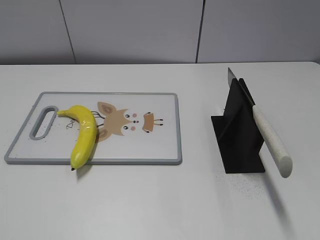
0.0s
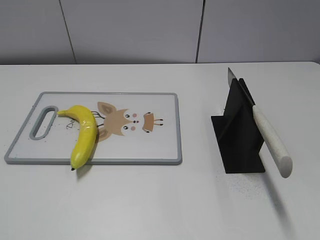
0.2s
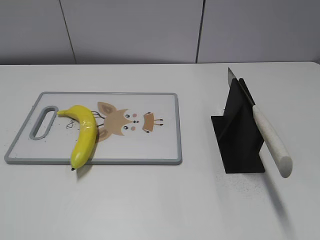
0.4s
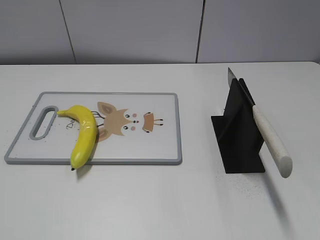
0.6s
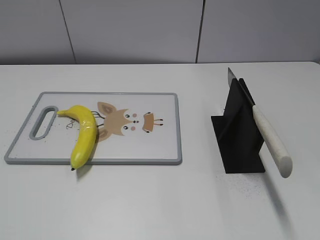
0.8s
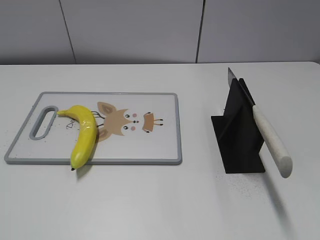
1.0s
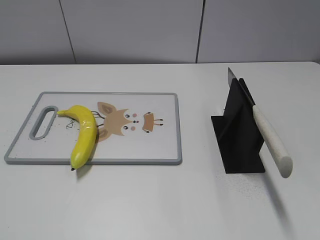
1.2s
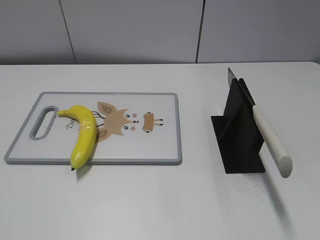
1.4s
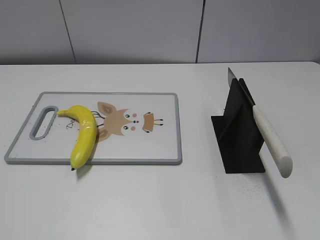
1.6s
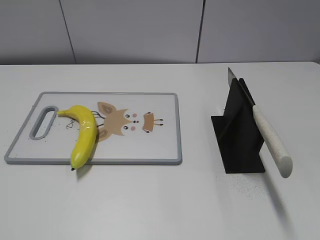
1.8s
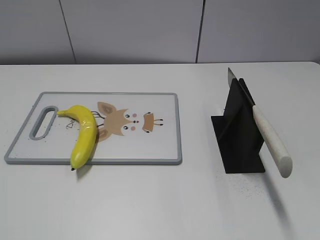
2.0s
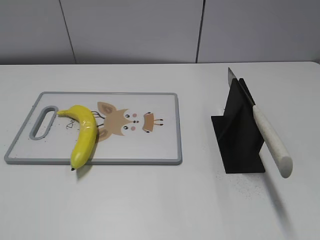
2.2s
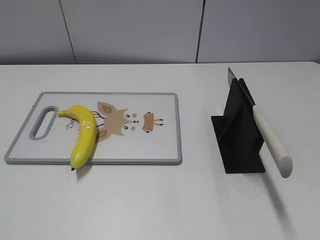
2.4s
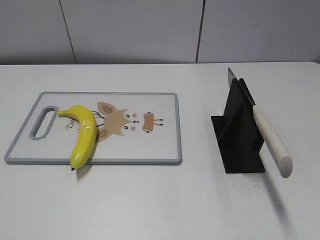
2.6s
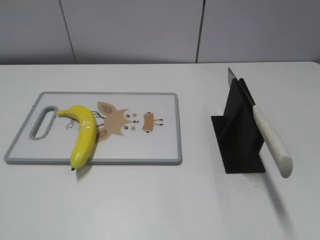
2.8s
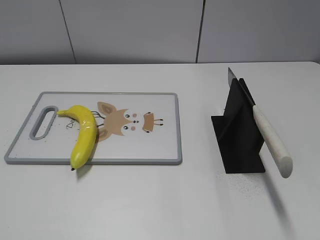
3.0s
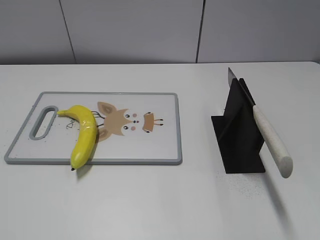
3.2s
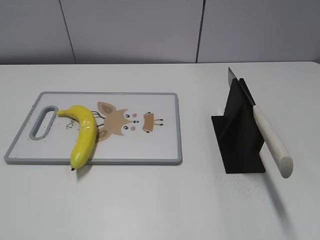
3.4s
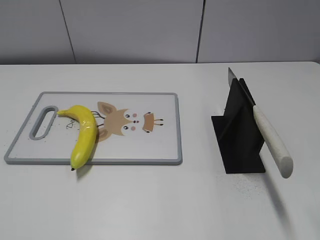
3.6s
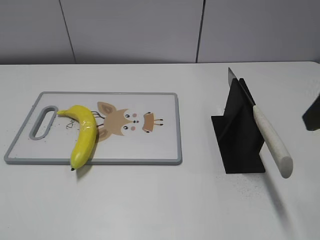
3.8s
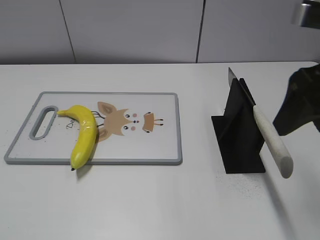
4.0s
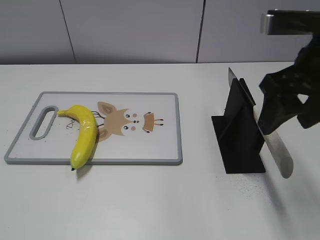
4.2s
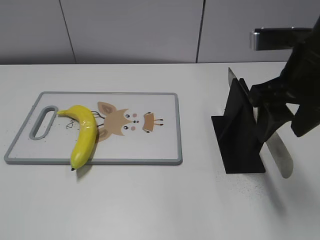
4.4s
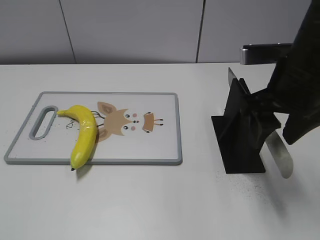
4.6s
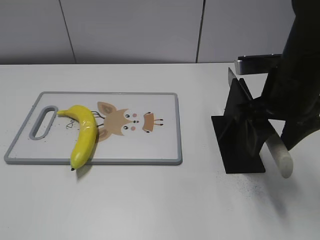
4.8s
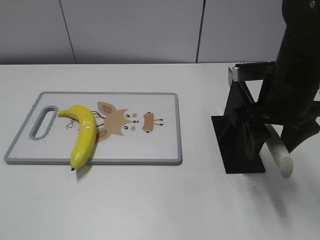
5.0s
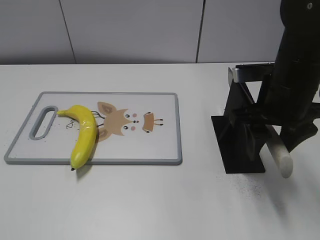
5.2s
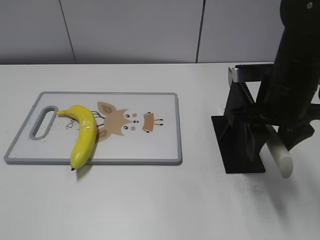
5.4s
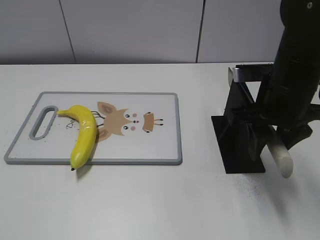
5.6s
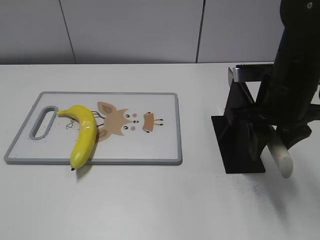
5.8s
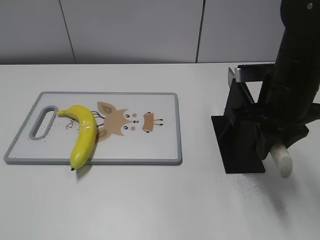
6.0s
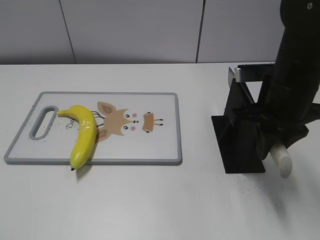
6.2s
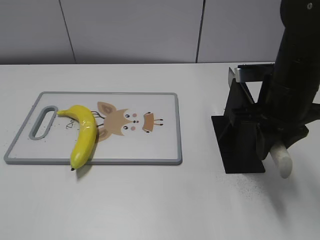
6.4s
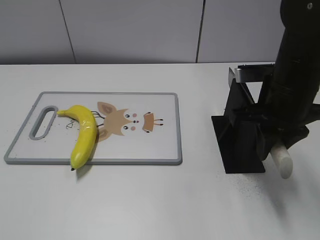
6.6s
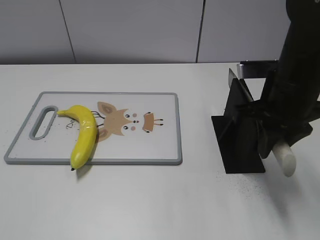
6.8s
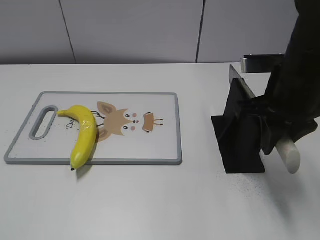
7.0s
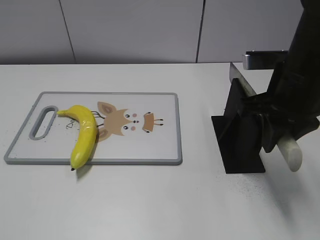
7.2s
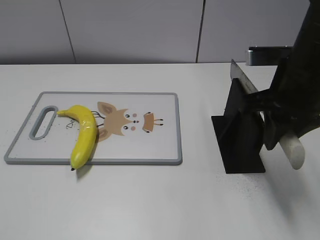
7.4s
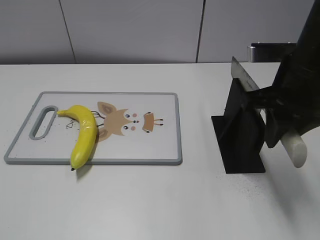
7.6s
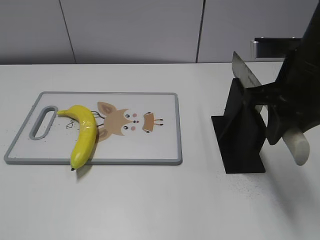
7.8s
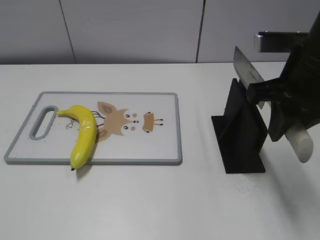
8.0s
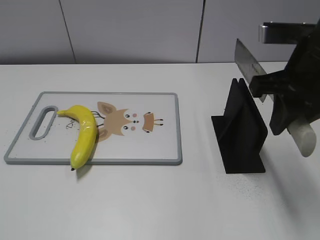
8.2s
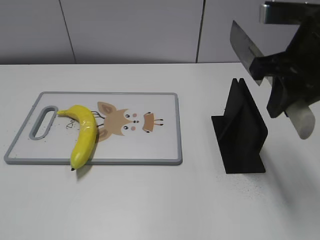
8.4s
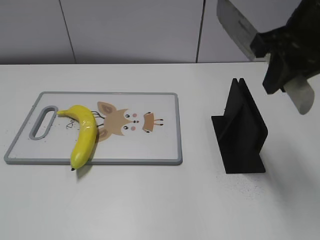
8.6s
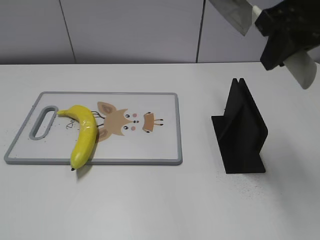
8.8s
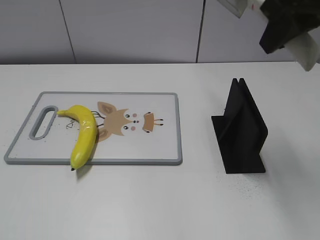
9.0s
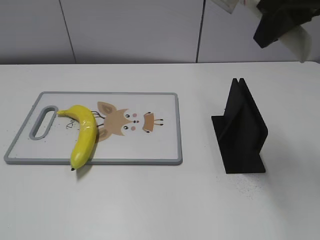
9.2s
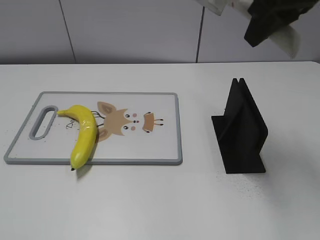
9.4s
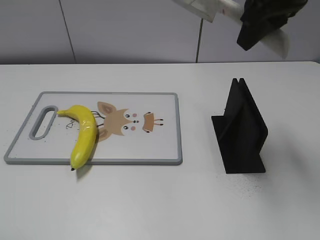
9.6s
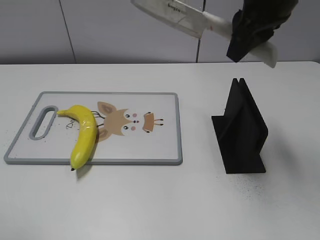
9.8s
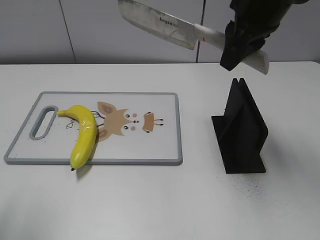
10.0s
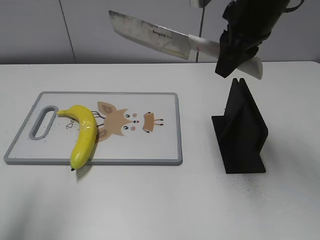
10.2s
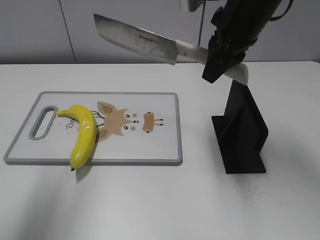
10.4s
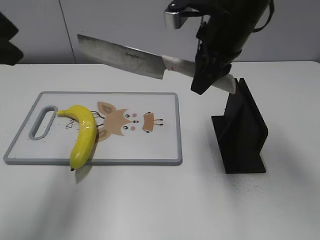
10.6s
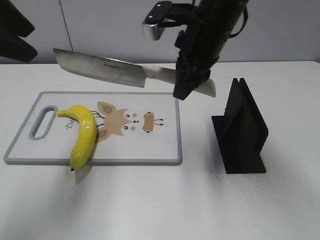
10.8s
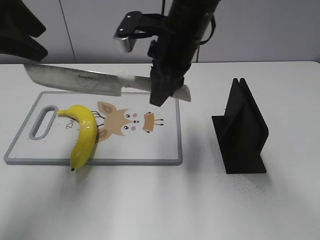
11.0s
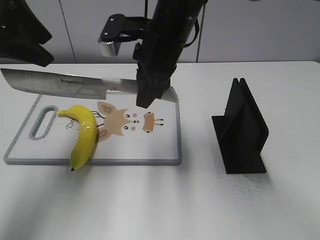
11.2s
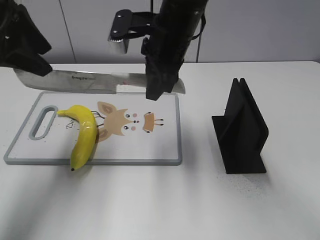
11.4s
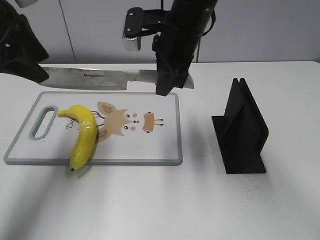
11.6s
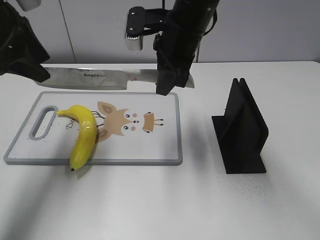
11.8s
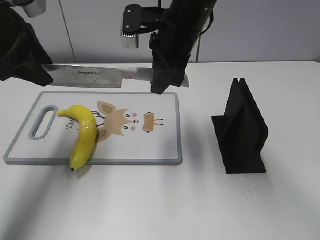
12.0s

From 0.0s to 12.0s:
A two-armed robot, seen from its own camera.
Task of the whole recording: cut plastic banana.
Step, from 0.0s to 7.8s: Grab the knife handle with your right hand.
From 3.0s to 4.4s: The right gripper heads forward and to the left, covering approximately 20 cm.
From 4.4s to 6.0s: The right gripper travels downward by about 5 cm, and closes up.
From 6.0s to 7.6s: The grippers move only a little.
From 7.6s to 9.0s: The right gripper goes roughly 10 cm upward.
From 9.0s to 10.4s: The right gripper moves downward, forward and to the left, approximately 10 cm. The left gripper shifts approximately 20 cm forward and upward.
From 10.4s to 12.0s: The right gripper moves to the left, approximately 10 cm, while the left gripper travels forward and downward by about 15 cm.

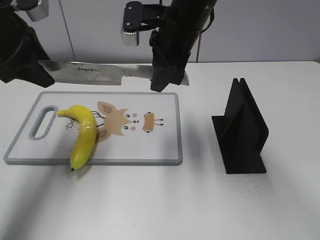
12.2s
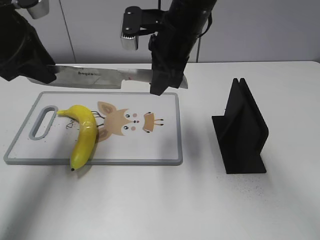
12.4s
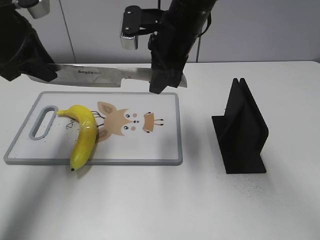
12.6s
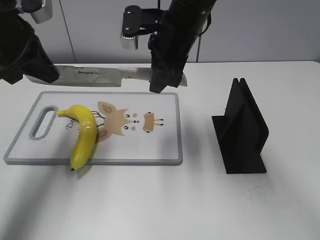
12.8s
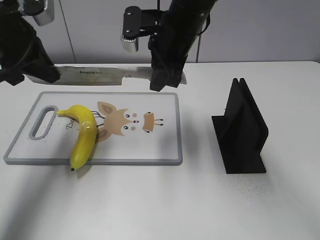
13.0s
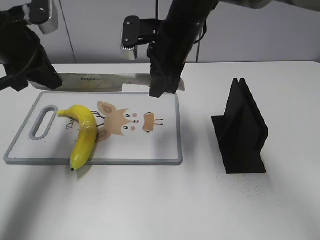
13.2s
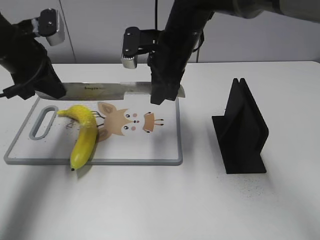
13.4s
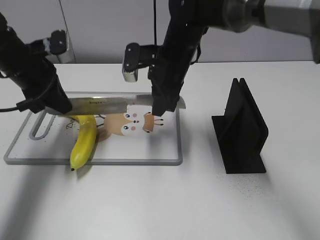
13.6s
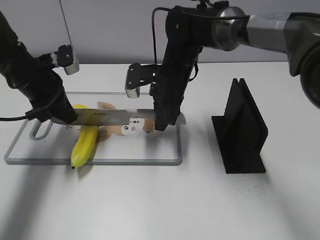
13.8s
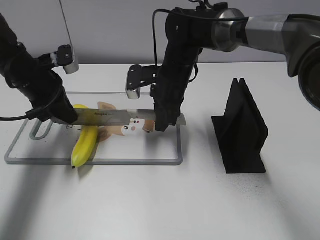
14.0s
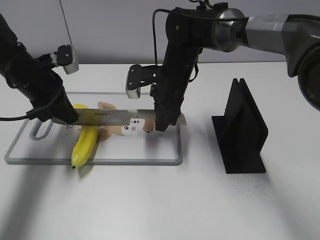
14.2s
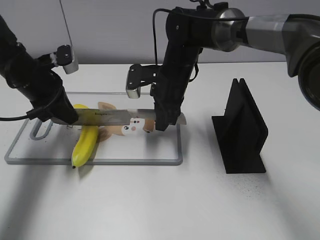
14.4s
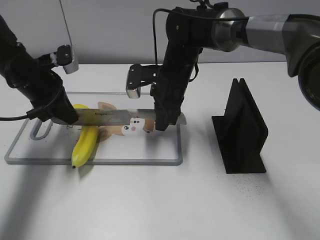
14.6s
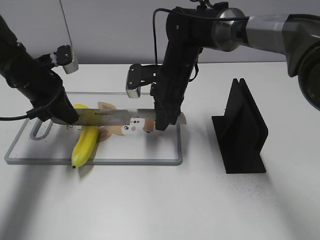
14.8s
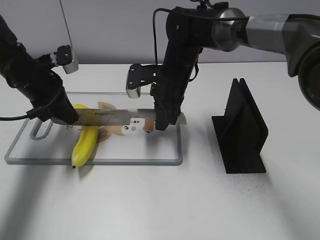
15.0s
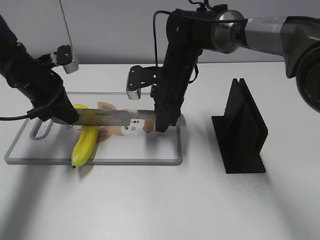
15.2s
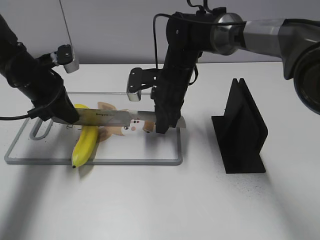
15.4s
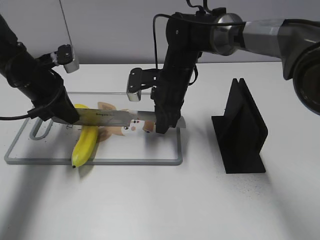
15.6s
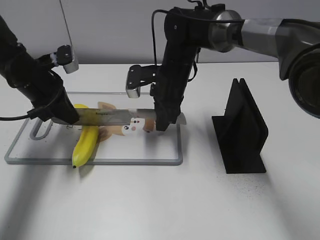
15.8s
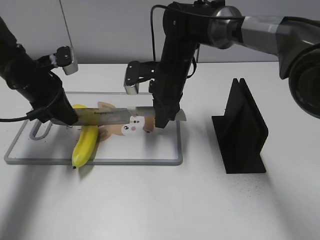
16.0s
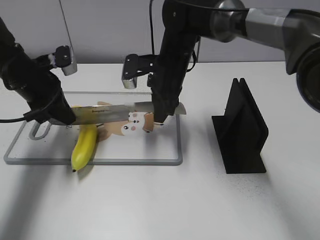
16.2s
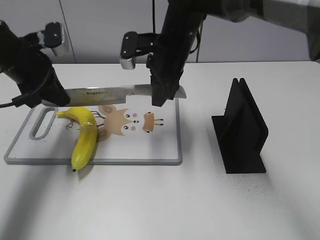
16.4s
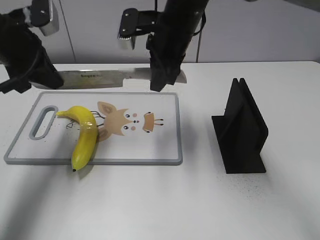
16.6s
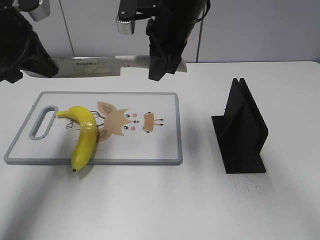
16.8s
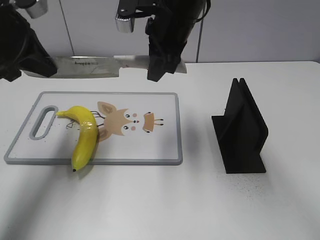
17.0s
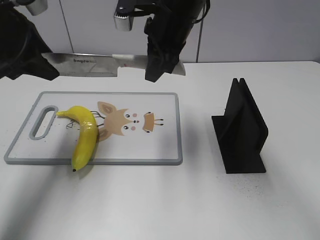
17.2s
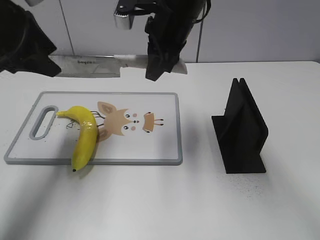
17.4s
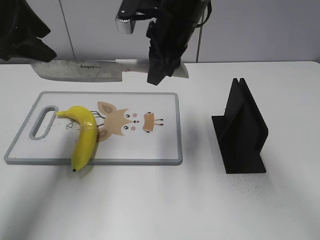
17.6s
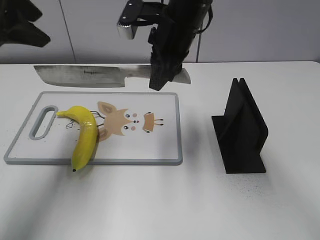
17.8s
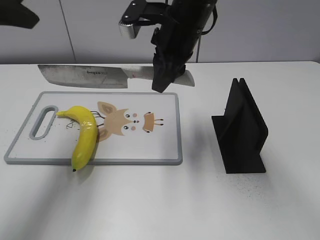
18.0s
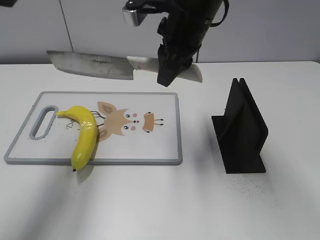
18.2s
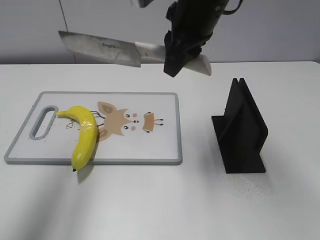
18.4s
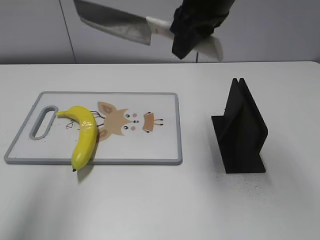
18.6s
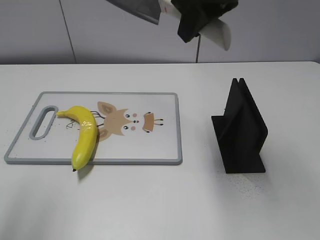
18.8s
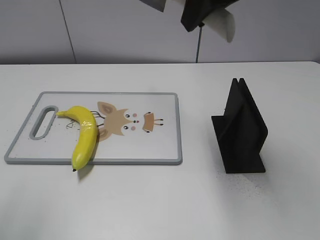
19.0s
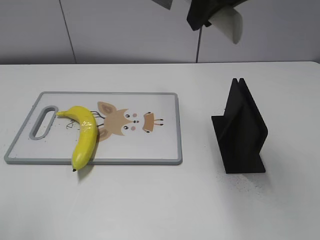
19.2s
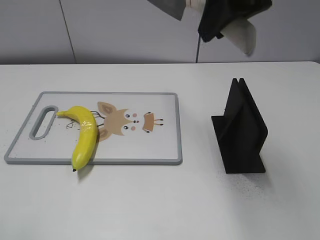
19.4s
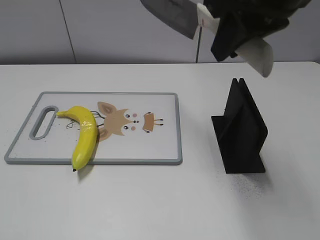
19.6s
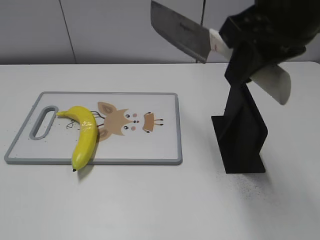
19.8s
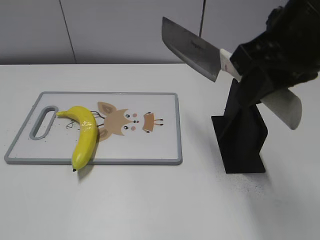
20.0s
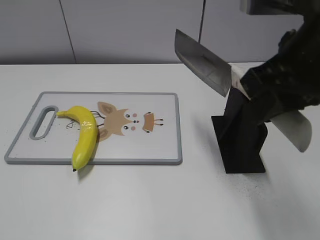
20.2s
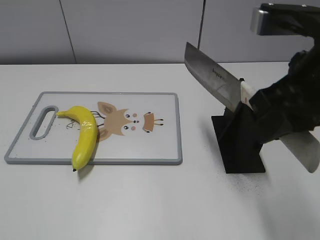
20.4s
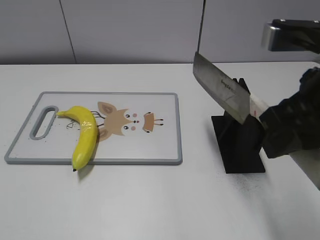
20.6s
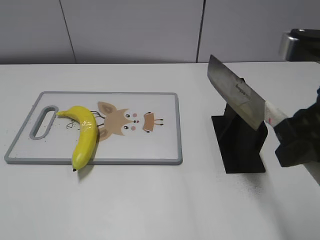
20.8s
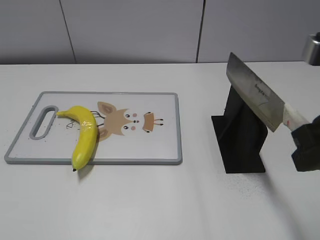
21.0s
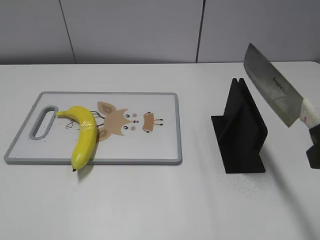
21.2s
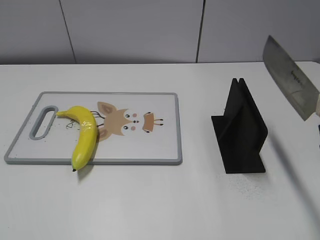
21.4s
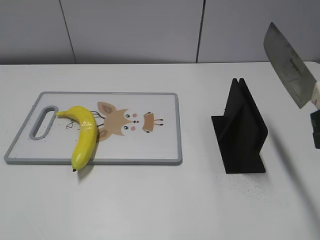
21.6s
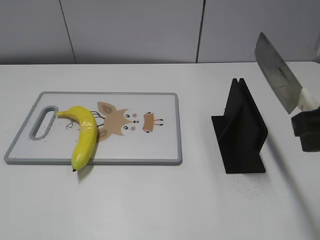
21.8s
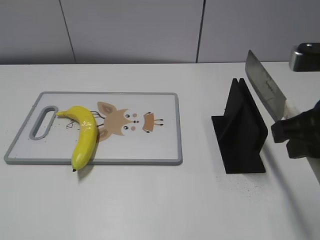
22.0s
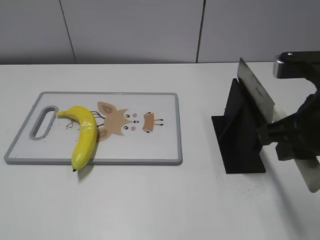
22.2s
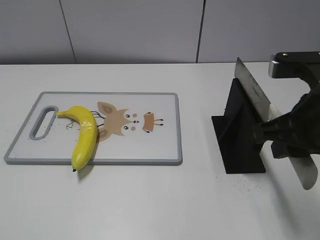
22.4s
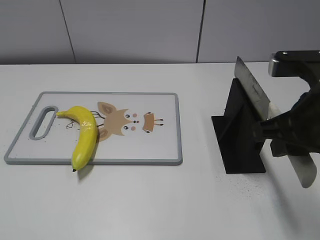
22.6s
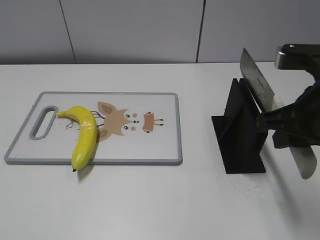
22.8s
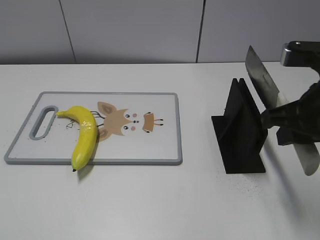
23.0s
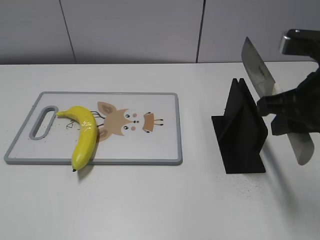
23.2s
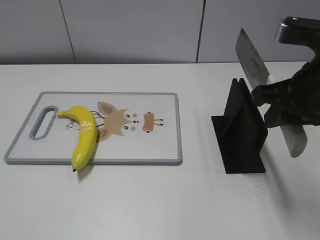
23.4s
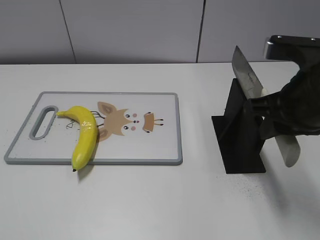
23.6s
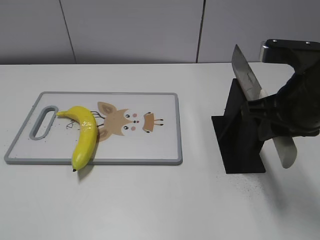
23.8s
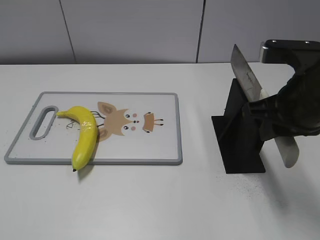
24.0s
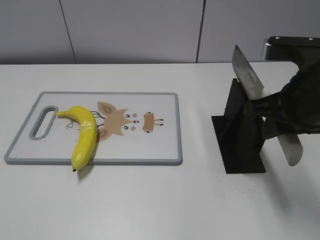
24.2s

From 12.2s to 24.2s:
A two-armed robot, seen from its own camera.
Task of the whole recording: cut plastic banana.
Step, from 12.2s to 16.0s: Lift the knife with your right hand.
Step, from 16.2s to 17.6s: Cut the banana with your right hand.
Step, from 18.0s to 20.8s: Secure the blade with your left hand.
From 12.2s to 13.8s: Both grippers travel together downward, approximately 10 cm. The left gripper closes.
From 13.8s to 15.2s: Neither gripper changes place.
From 15.2s to 16.6s: The two grippers go about 10 cm upward.
From 16.6s to 18.2s: The right gripper moves about 5 cm, while the left gripper heads upward and backward, covering about 15 cm, and opens up.
From 18.2s to 19.8s: The right gripper is displaced backward, upward and to the right by roughly 15 cm. Meanwhile the left gripper heads backward, covering roughly 25 cm.
From 19.8s to 21.2s: The left gripper moves downward, approximately 10 cm. Meanwhile the right gripper shifts approximately 15 cm backward, to the right and downward.
From 21.2s to 22.6s: The right gripper heads forward and downward, covering about 10 cm.
From 22.6s to 24.2s: There are only small adjustments of the grippers.
